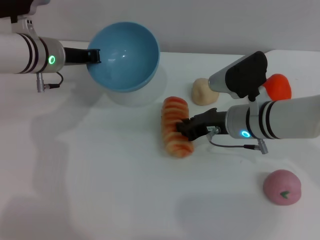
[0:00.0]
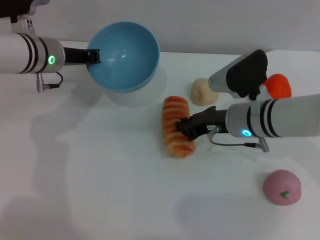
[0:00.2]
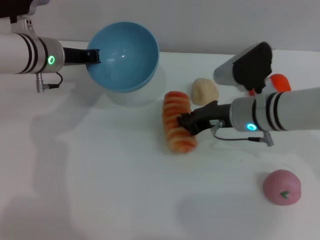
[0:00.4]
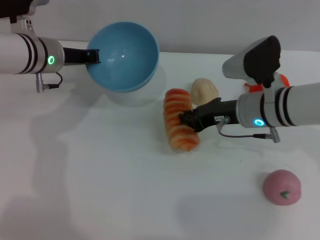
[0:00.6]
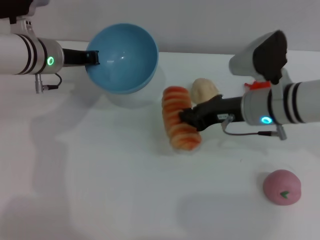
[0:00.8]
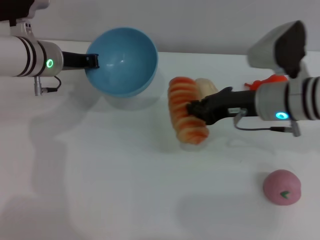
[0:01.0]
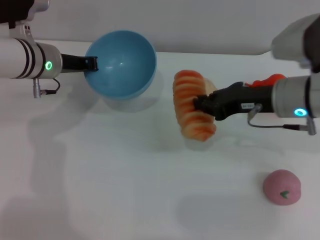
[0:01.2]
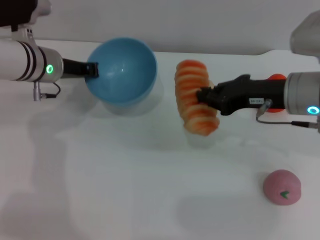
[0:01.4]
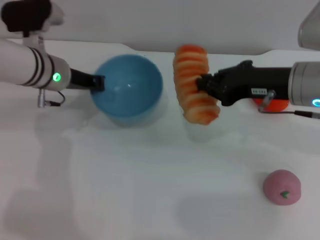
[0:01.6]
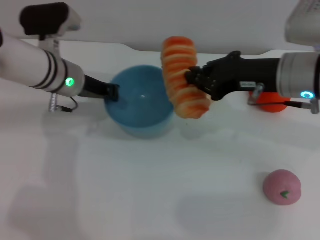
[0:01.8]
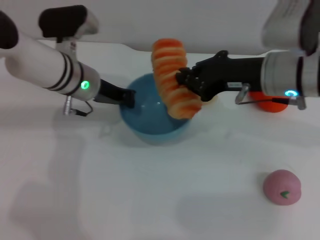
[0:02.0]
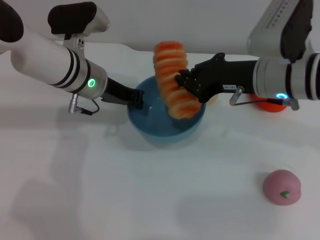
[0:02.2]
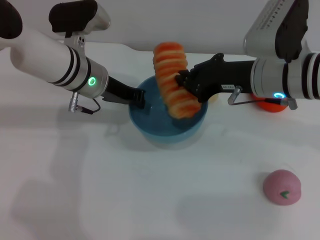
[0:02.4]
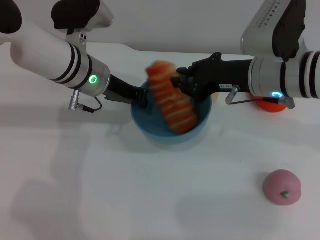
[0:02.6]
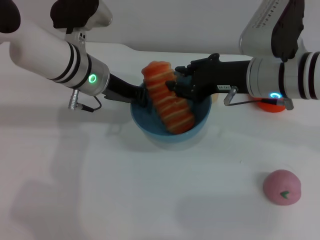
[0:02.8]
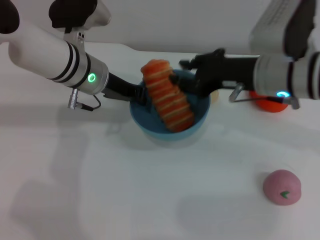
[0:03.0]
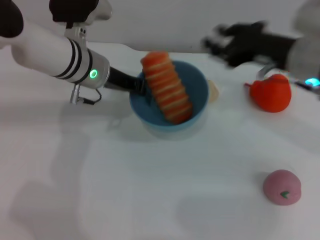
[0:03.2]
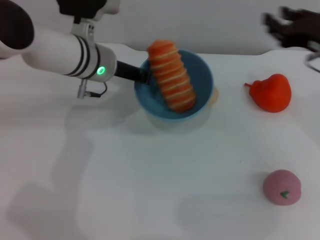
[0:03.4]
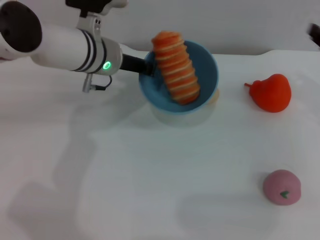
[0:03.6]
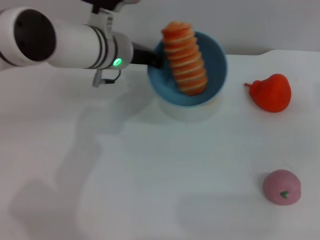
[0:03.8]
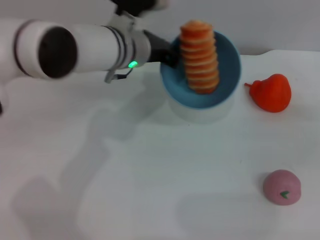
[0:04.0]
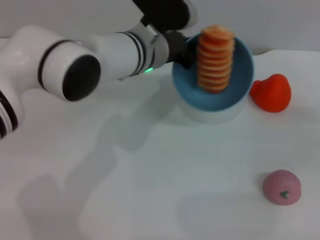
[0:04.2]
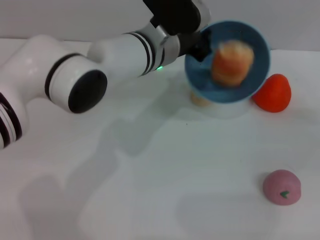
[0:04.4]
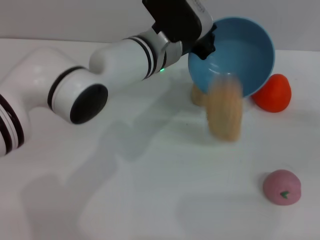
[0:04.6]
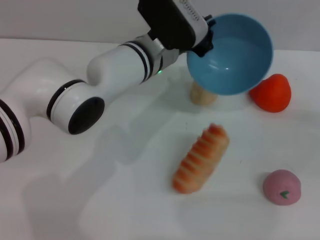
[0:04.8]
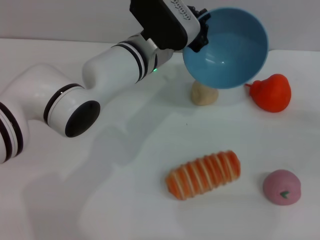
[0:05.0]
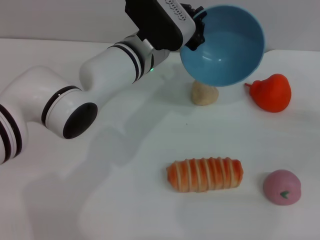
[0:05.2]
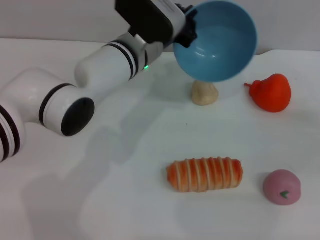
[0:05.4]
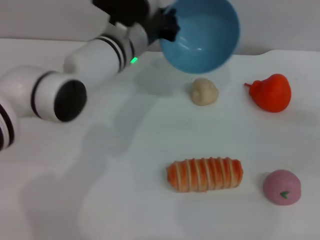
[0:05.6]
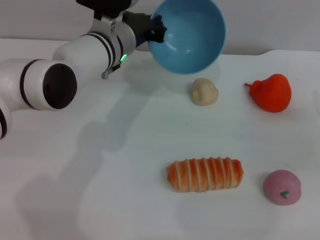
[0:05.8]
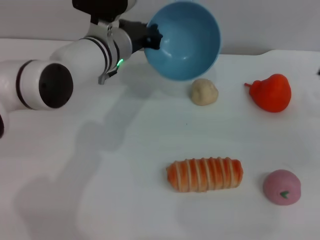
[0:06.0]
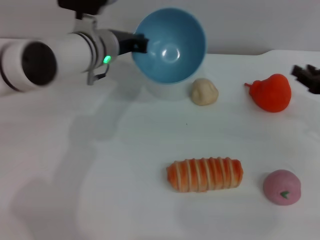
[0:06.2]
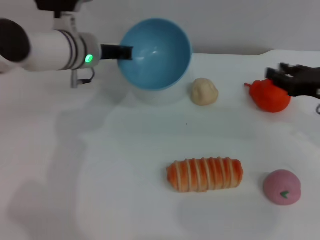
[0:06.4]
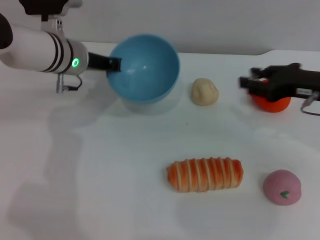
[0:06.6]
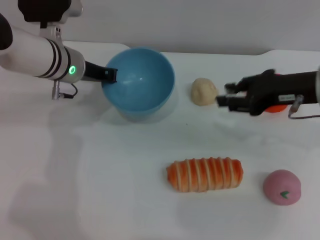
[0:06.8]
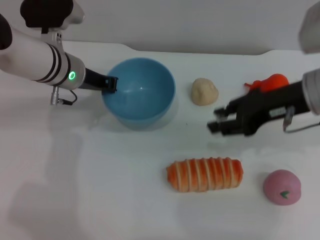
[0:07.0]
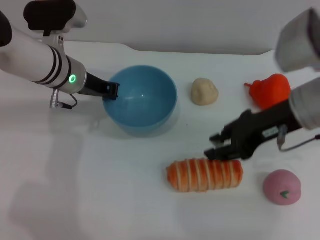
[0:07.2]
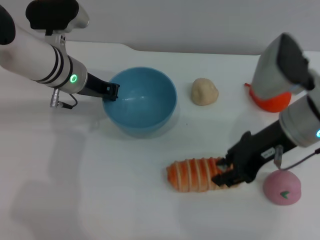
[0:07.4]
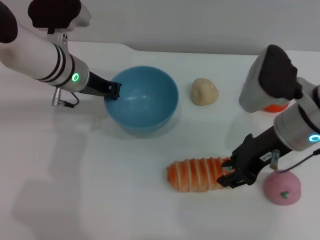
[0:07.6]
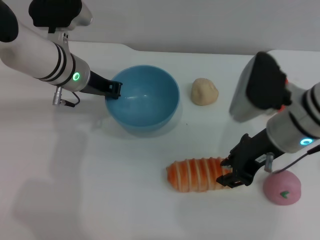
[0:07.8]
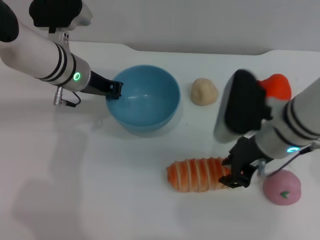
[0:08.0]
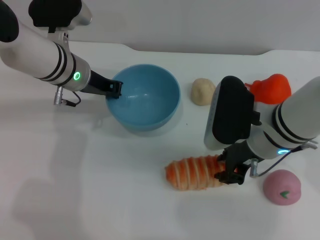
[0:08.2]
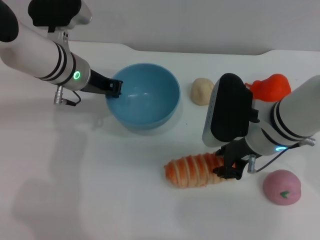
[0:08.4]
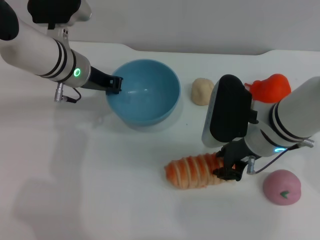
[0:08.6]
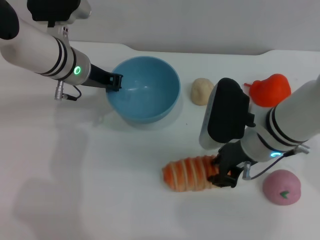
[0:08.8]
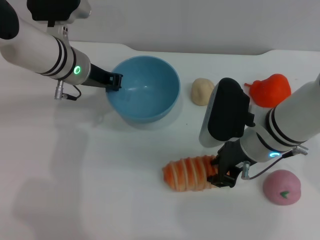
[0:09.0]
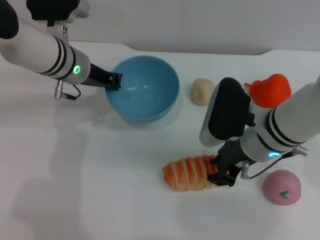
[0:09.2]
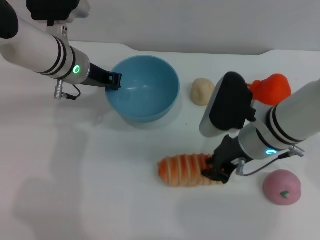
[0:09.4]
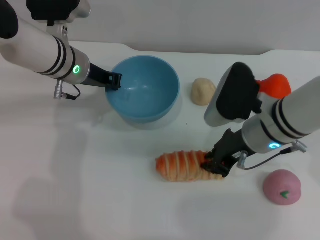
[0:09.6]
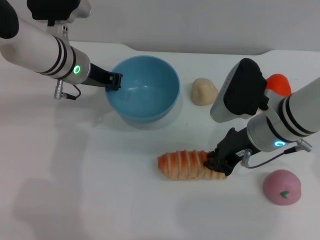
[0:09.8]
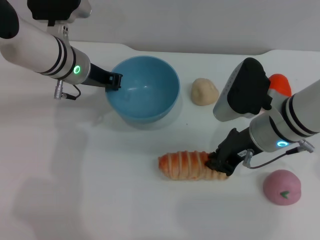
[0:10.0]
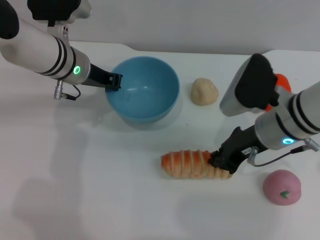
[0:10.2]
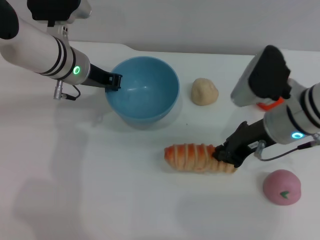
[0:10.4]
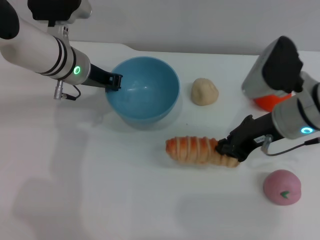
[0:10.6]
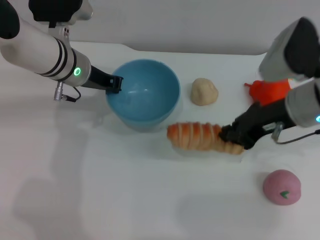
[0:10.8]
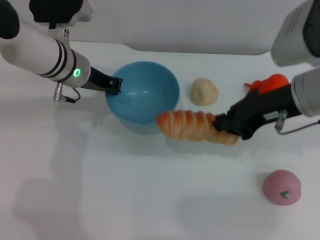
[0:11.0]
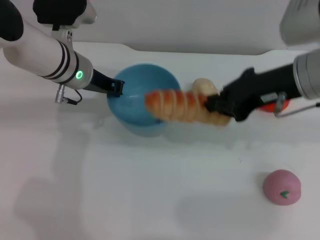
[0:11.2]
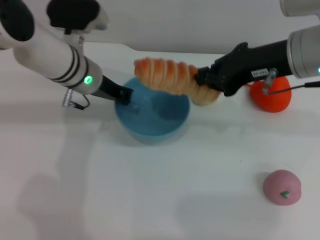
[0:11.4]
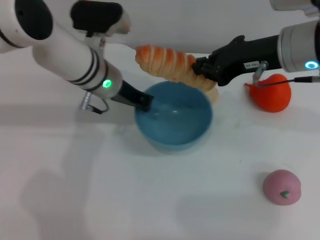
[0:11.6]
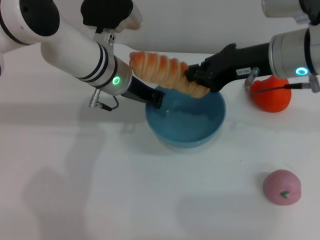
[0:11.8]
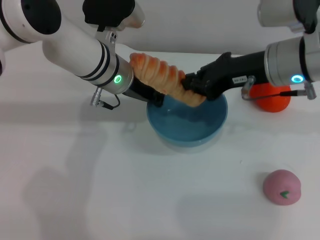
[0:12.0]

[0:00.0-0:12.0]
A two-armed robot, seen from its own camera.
Task of the whole recording: put the bread into the blue bowl and pour it out repeatedly.
Step, 0:00.8 to 0:03.2: Place the bread into the bowl.
Step, 0:03.4 to 0:05.2: Pour the bread out of the bowl.
Step, 0:05.4 to 0:11.0: Pick up the bread with the right gripper.
0:00.0 to 0:01.6: The right gripper goes some 10 cm upward and to the right.
0:01.6 to 0:03.0: The right gripper opens its fingers. Meanwhile the left gripper goes about 5 cm to the right.
0:03.0 to 0:04.4: The left gripper heads to the right, covering some 10 cm, while the right gripper shifts roughly 20 cm to the right.
0:04.4 to 0:06.0: The left gripper shifts approximately 5 cm to the left.
0:06.0 to 0:07.6: The left gripper travels to the left by approximately 5 cm; the right gripper goes some 15 cm to the left.
0:07.6 to 0:09.0: The right gripper ends up roughly 5 cm from where it was.
0:09.0 to 0:10.4: The right gripper closes.
0:10.4 to 0:12.0: The right gripper goes some 5 cm upward. Meanwhile the left gripper is displaced to the right by roughly 5 cm.

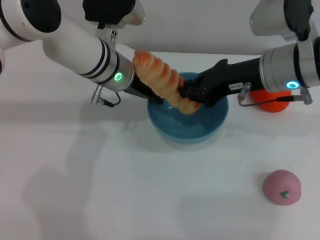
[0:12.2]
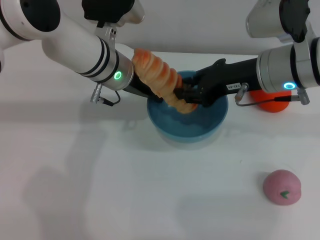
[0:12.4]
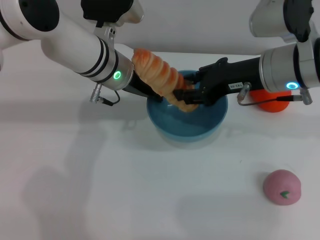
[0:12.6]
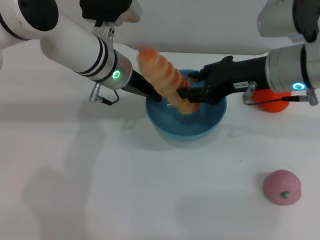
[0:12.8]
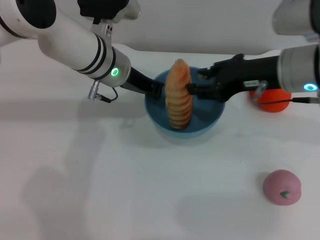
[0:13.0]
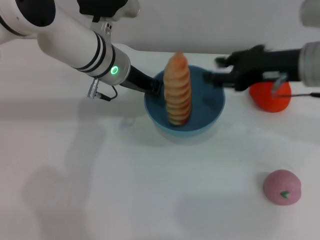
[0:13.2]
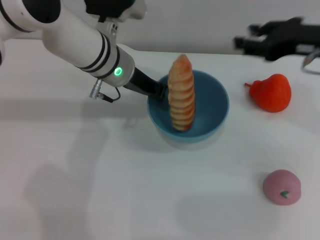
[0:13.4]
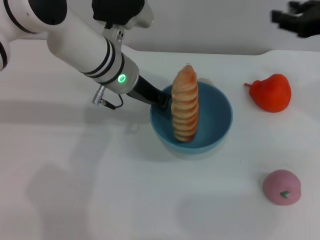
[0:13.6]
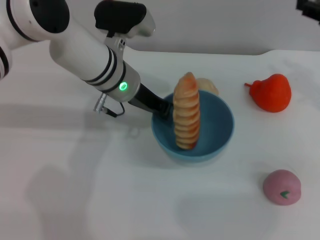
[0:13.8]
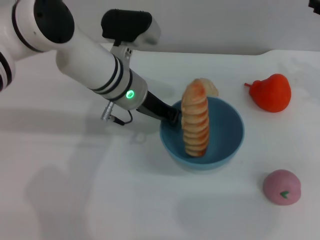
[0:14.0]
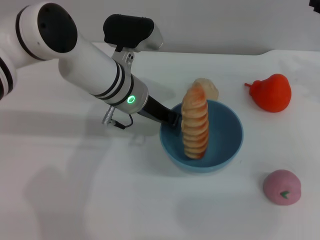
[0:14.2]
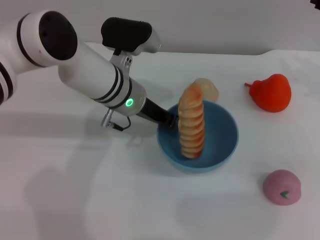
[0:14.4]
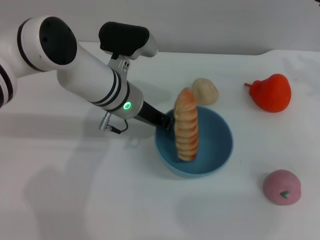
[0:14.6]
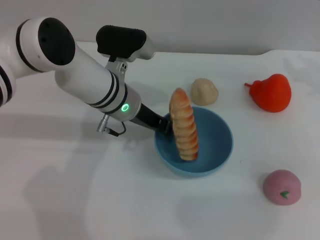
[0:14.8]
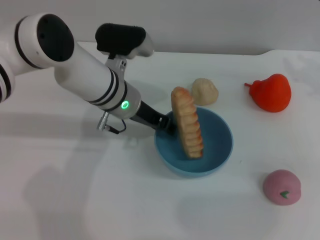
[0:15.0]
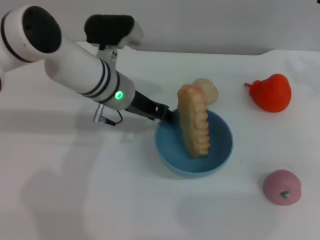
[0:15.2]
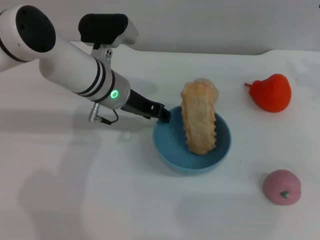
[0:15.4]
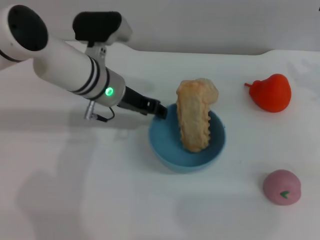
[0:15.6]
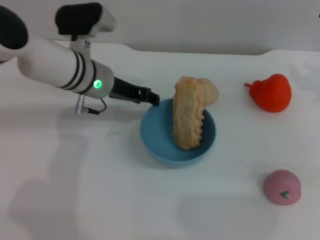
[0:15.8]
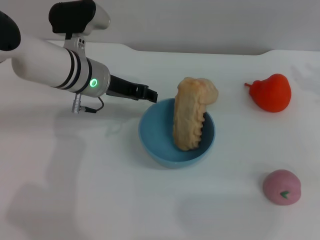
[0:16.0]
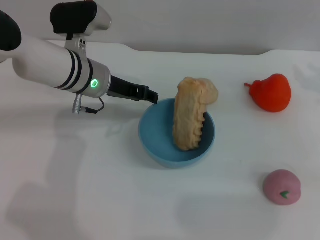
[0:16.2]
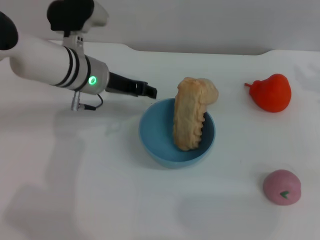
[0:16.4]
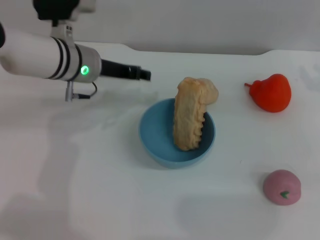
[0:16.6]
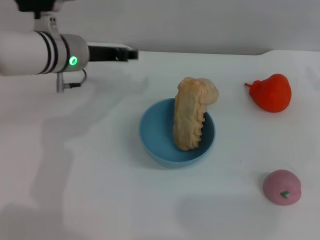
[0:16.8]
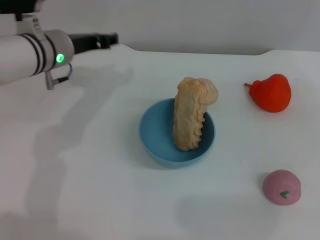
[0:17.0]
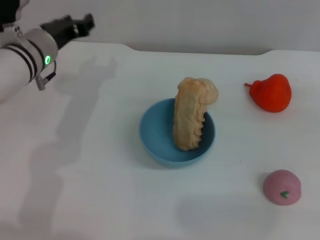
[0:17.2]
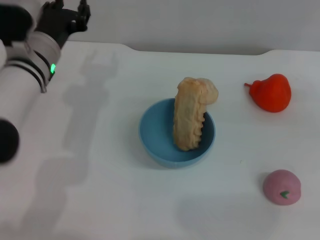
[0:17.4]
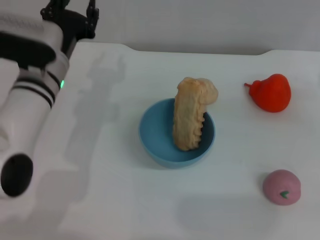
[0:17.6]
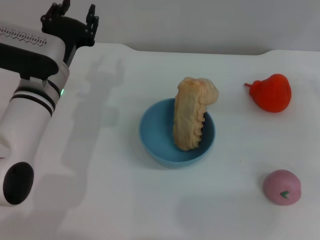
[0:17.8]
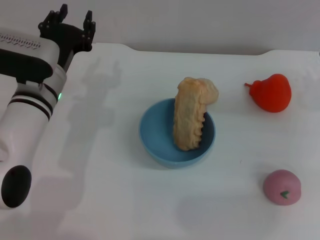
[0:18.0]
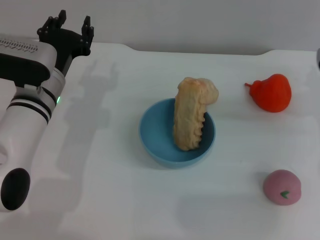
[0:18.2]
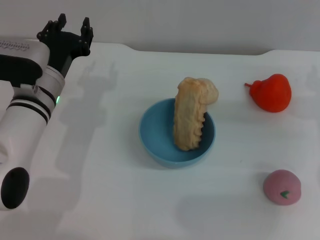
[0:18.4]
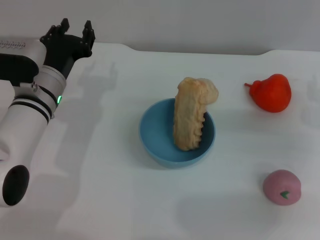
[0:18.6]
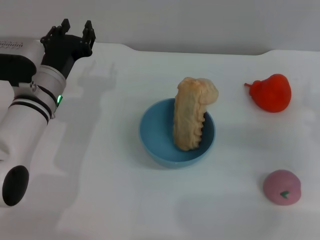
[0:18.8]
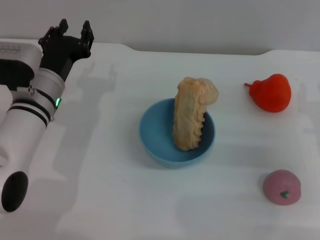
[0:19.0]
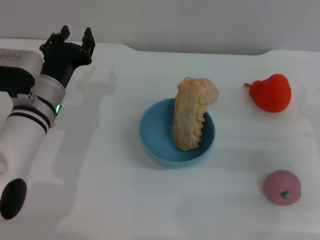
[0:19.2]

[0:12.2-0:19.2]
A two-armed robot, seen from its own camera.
Task of the whole recording: put the bread into the blue bowl and pour it out repeatedly.
Step, 0:12.2 to 0:13.8: Place the bread into the bowl.
Step, 0:14.0 to 0:16.0: Place the bowl on the table.
0:12.2 to 0:13.6: The right gripper shifts about 10 cm to the right, and opens.
0:15.0 to 0:16.4: The left gripper shifts some 5 cm to the left, and opens.
0:16.4 to 0:17.8: The right gripper heads downward, covering approximately 5 cm. The left gripper travels backward by about 5 cm.
